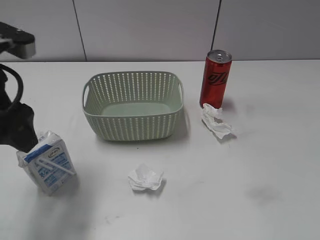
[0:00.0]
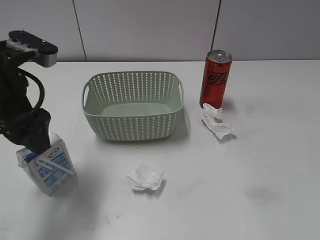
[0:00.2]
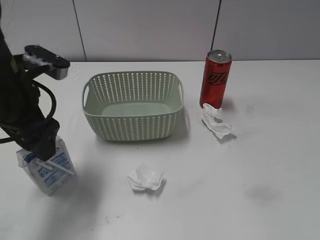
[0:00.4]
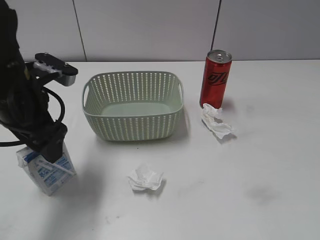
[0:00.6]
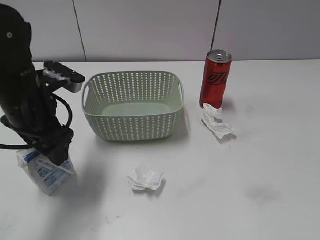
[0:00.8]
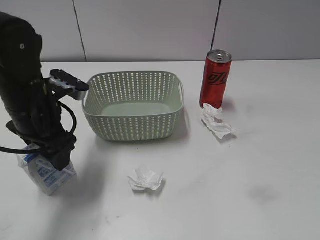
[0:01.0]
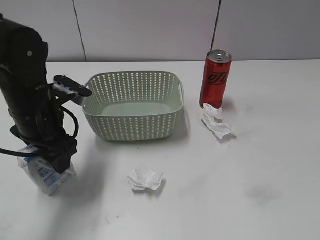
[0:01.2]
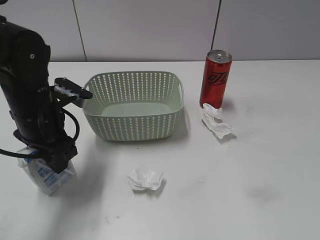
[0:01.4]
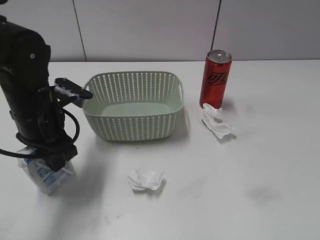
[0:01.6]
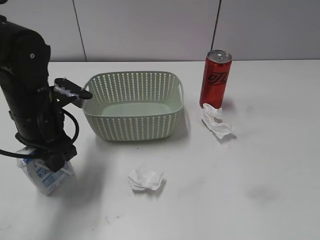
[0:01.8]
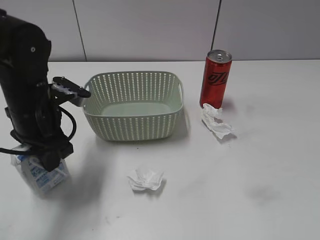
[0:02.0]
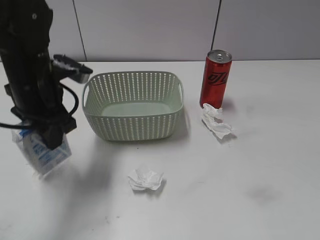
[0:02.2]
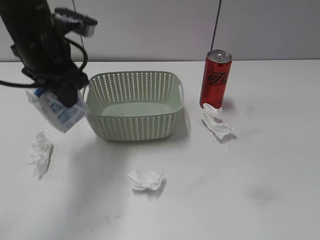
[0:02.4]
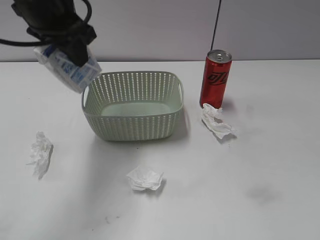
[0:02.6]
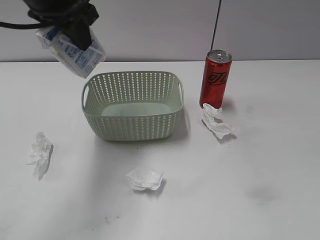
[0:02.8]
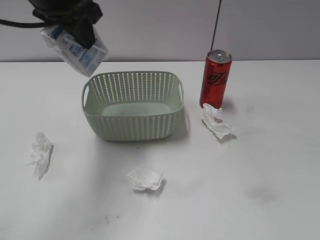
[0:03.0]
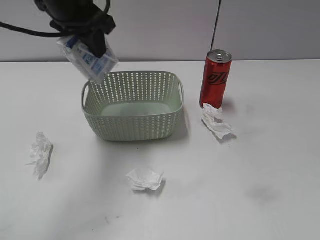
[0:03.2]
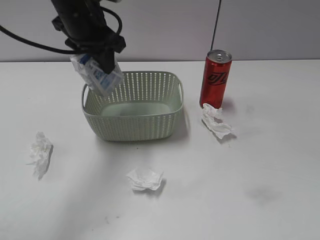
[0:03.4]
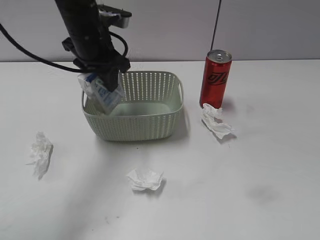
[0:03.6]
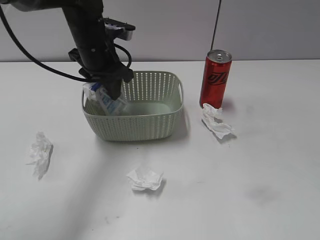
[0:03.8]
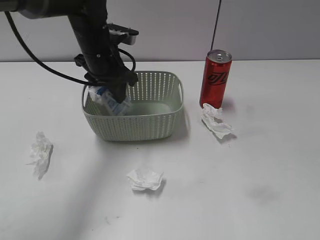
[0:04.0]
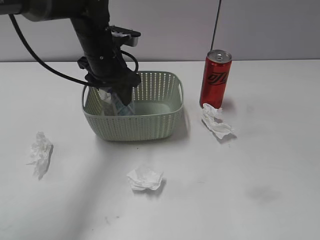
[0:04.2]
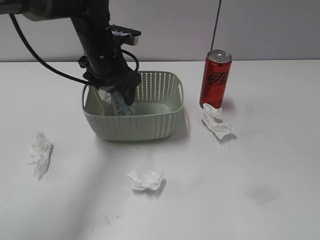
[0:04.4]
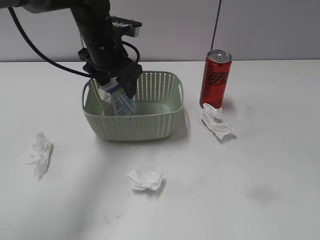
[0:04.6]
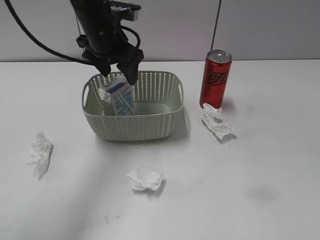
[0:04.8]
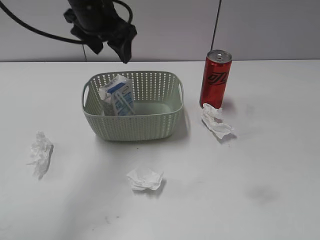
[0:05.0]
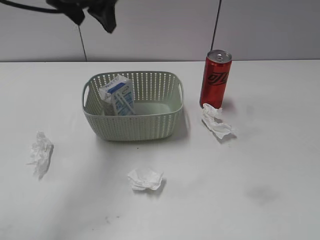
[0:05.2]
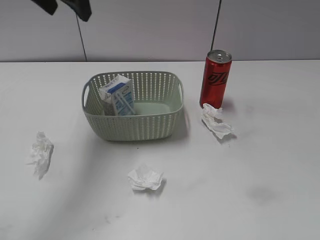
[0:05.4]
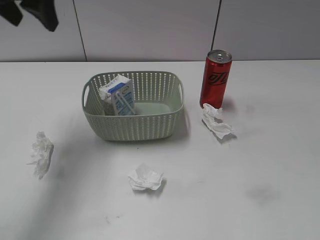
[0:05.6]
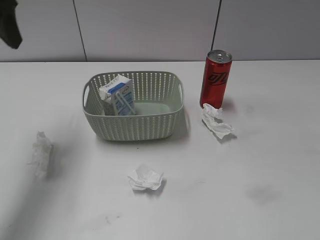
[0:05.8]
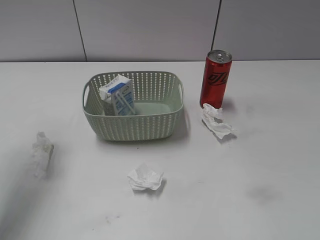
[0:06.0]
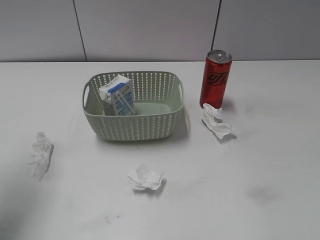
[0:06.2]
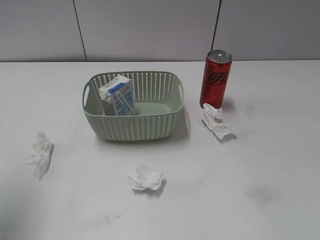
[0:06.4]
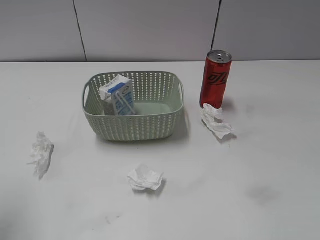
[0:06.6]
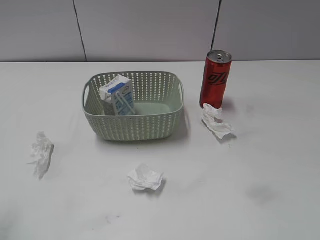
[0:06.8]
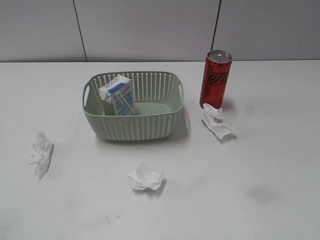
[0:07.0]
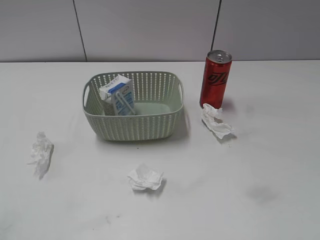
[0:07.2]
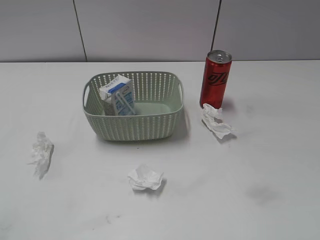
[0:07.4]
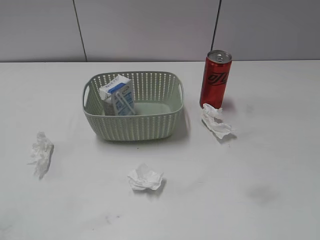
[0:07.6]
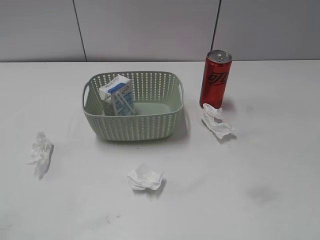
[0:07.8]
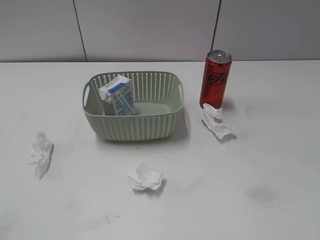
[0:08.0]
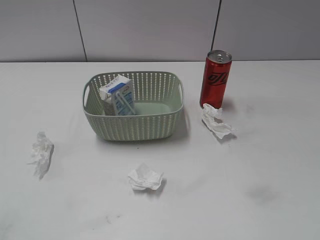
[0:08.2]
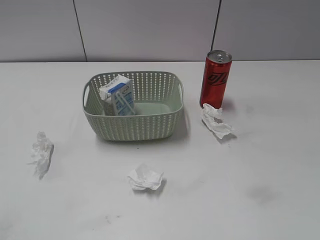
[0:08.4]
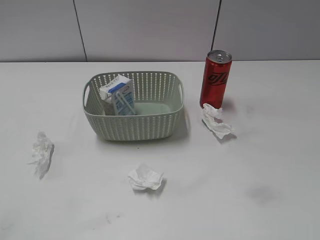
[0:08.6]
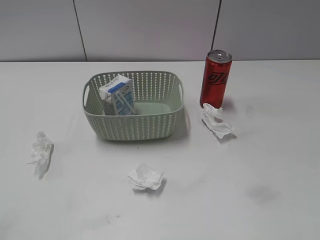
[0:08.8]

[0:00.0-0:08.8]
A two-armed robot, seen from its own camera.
Step, 0:00.0 to 0:01.6: Grasp the milk with left gripper.
Step, 0:01.8 to 0:05.0: Place the milk in the basket with left gripper.
0:00.0 to 0:01.4: The left gripper travels downward and forward by some 15 cm.
0:01.4 to 0:03.0: The left gripper is displaced upward by about 15 cm.
0:03.0 to 0:04.4: The left gripper moves downward and forward, roughly 15 cm, and opens.
0:04.4 to 0:05.8: The left gripper is displaced upward, to the left and backward by some 25 cm.
0:05.8 to 0:07.4: The left gripper heads backward, covering about 30 cm.

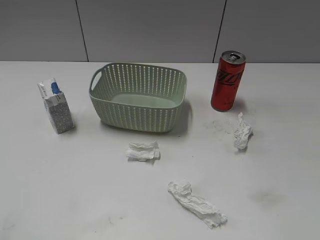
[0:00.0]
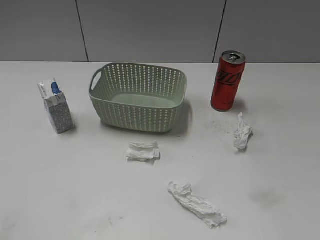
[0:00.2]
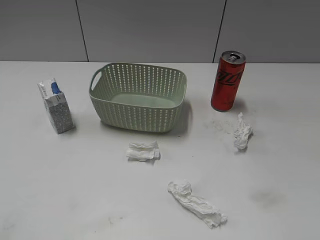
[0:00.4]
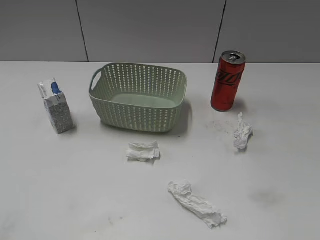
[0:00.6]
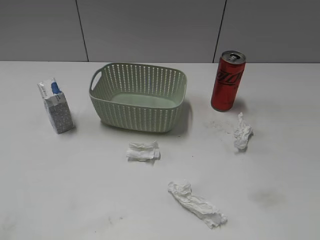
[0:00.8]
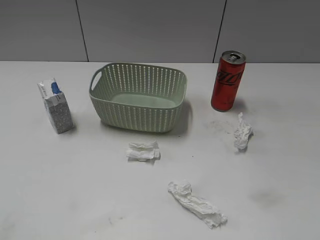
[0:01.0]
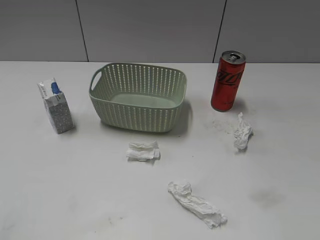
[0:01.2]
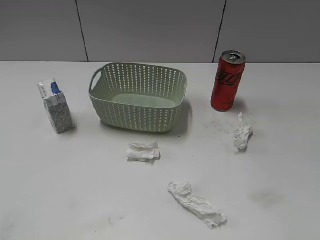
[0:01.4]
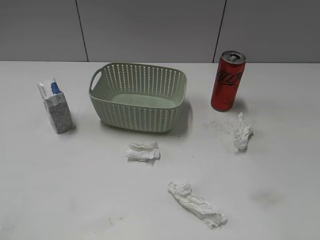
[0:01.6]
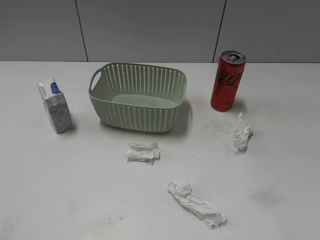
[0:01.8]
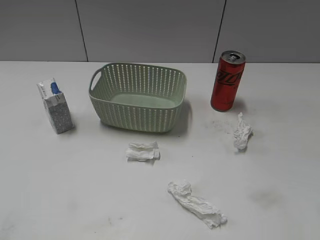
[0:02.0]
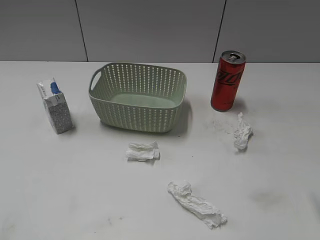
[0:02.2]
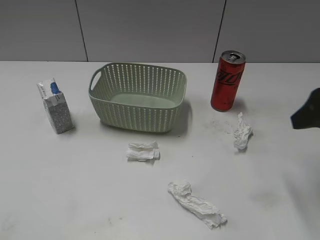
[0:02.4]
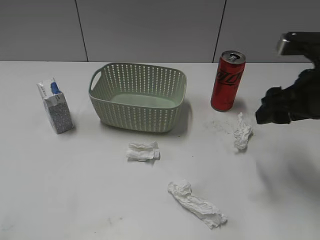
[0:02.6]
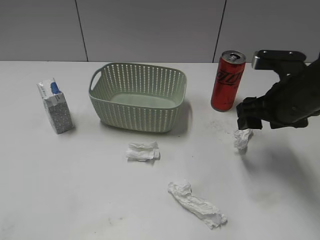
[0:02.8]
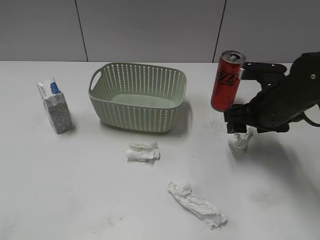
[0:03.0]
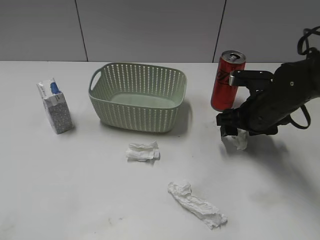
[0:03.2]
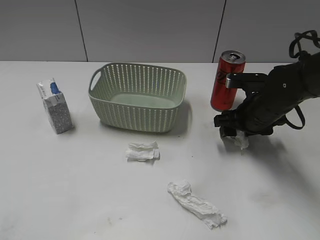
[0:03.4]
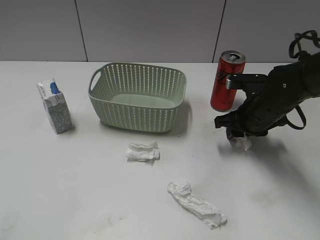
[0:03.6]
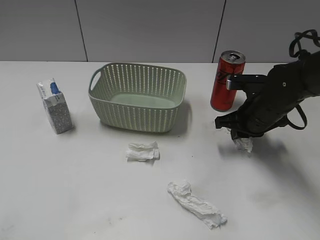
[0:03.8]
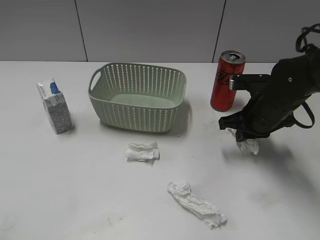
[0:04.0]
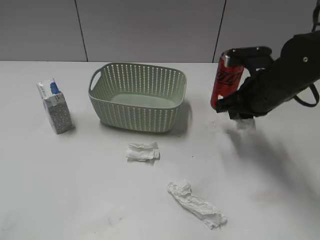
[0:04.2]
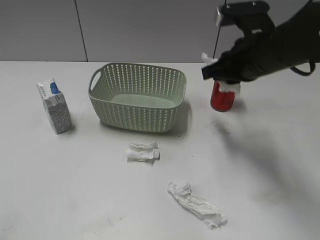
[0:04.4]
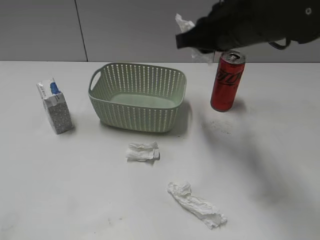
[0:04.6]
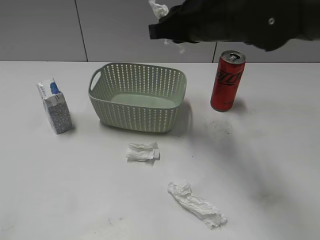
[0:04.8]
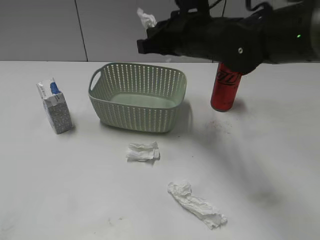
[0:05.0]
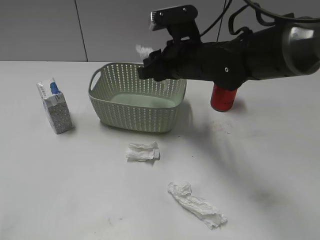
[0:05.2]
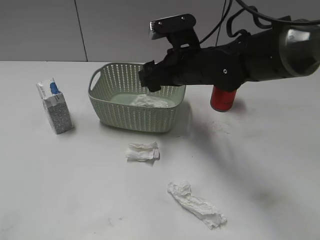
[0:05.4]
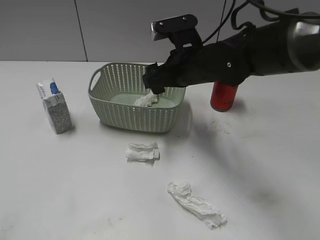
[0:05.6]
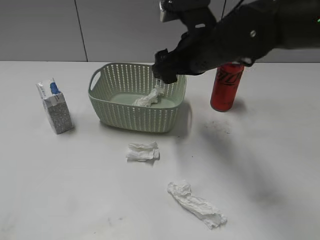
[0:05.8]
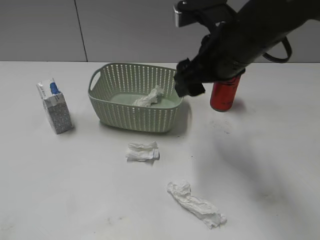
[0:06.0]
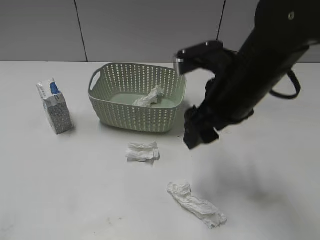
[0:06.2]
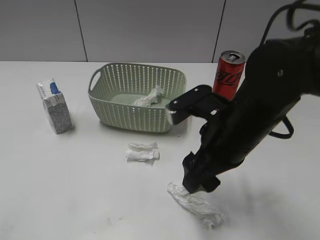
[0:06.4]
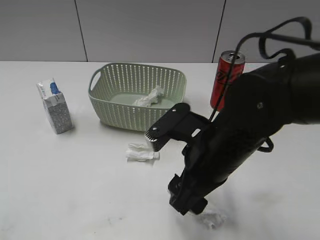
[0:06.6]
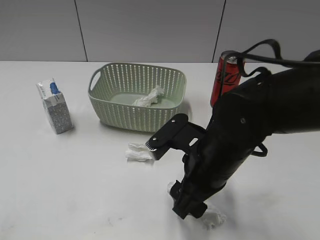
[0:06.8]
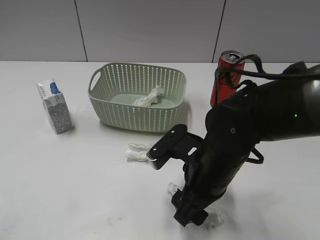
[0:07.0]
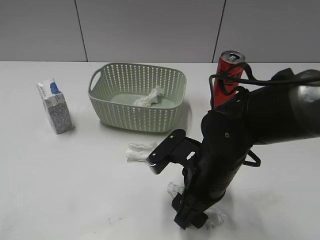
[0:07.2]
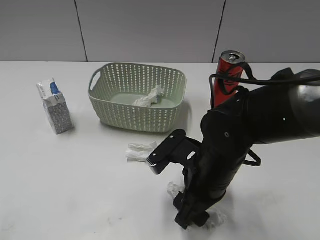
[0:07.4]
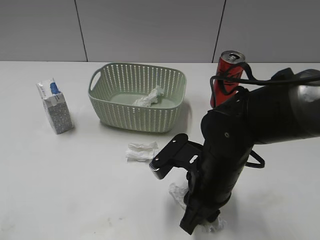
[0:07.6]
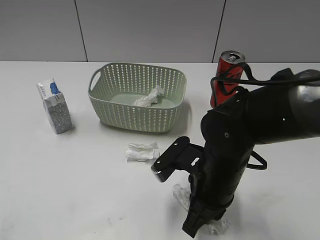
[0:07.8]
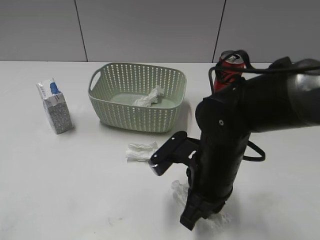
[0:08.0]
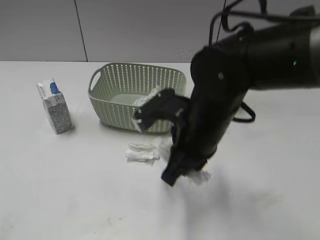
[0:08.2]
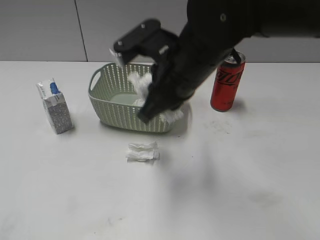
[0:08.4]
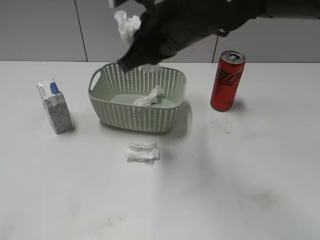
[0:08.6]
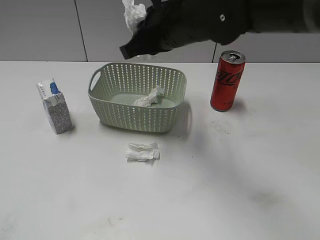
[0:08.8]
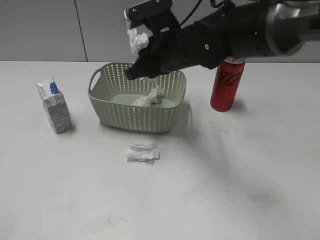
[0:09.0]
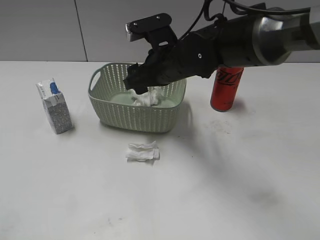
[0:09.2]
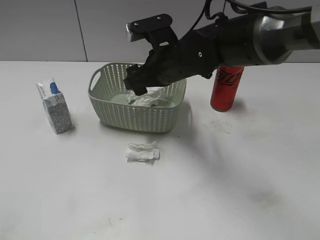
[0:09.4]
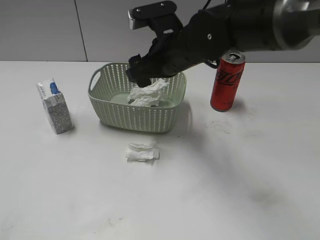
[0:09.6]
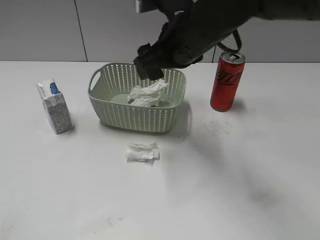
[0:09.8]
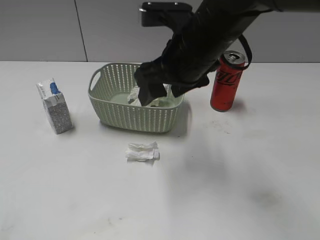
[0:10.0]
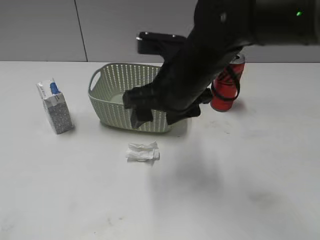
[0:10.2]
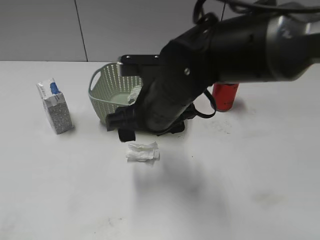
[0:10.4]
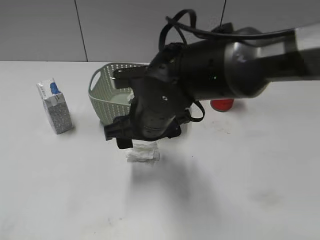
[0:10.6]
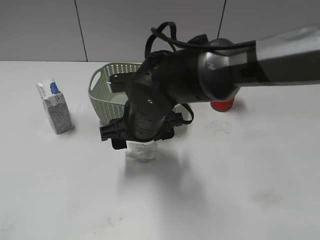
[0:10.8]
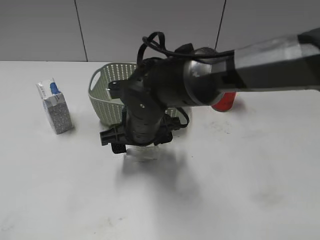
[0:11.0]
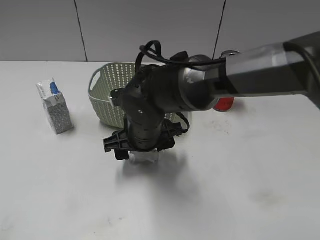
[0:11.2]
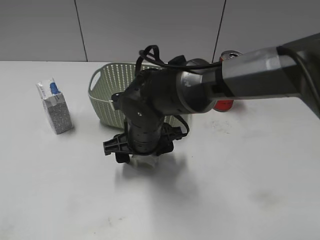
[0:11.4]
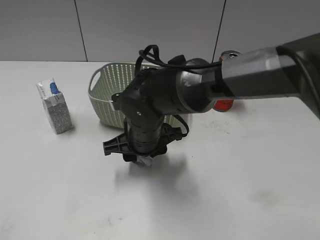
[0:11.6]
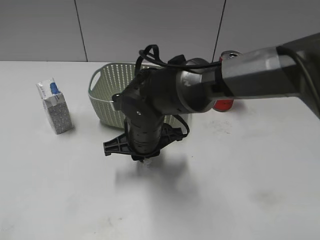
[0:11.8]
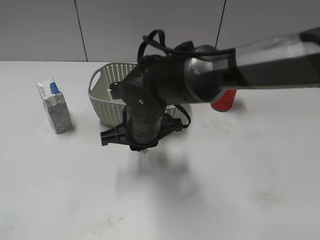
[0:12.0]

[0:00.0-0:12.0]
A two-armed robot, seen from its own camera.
Step, 0:02.2 to 0:03.8: Grasp the waste paper with right gripper.
Step, 0:04.0 to 0:05.4: Place the waste paper in the basket with right gripper.
Step, 0:05.6 to 0:08.2: Grasp the waste paper with right gripper.
Step, 0:08.4 to 0:09.4: Place the waste paper in the basket with right gripper.
Step, 0:09.6 to 0:11.6: Grasp the waste paper with right gripper.
0:01.6 to 0:03.0: The right gripper shifts approximately 30 cm forward and downward.
0:03.0 to 0:04.4: The right gripper goes roughly 10 cm upward, and closes up.
0:04.4 to 0:06.0: The right gripper is displaced to the left by approximately 5 cm, and opens.
0:06.0 to 0:07.6: The right gripper is displaced downward and backward by approximately 20 cm, and closes its fingers.
0:07.6 to 0:09.0: The right gripper moves forward and upward, approximately 20 cm, and closes.
0:09.0 to 0:10.4: The right gripper shifts some 10 cm backward, and opens up.
0:10.4 to 0:12.0: The right gripper heads downward, covering approximately 5 cm, and closes up.

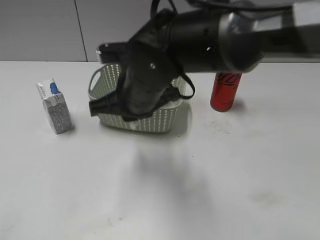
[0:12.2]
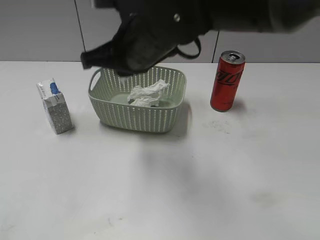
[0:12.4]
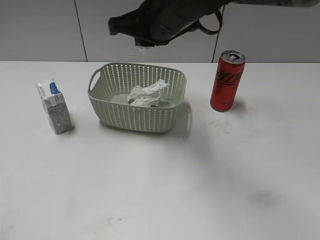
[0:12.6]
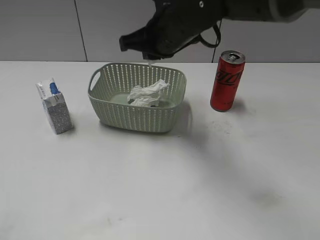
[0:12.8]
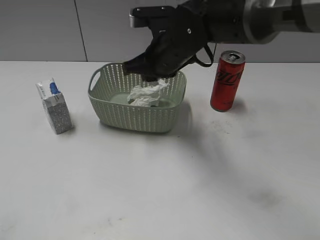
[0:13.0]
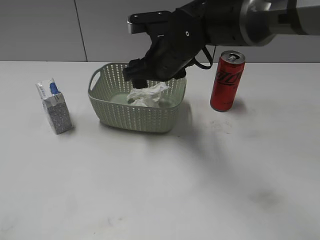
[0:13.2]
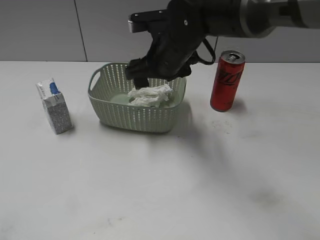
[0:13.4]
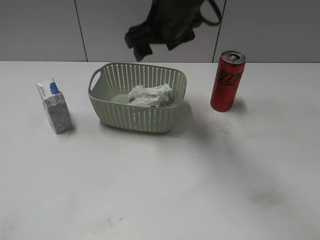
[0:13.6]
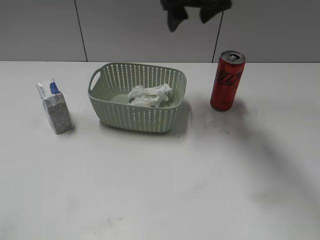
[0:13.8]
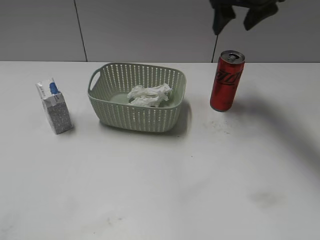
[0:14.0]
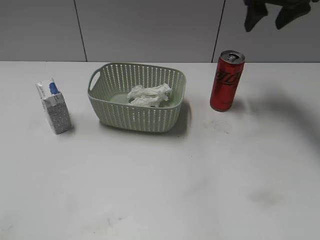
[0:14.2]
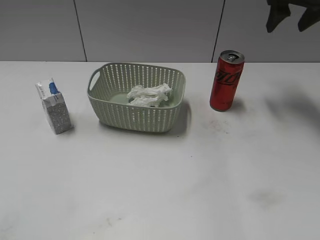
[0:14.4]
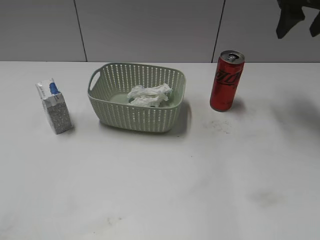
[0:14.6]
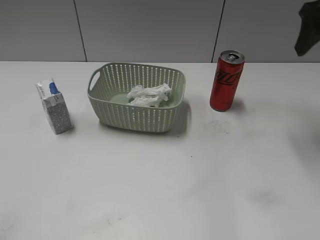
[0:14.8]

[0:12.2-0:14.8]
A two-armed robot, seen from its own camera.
Step, 0:12.2 to 0:13.4: Place the waste paper in the basket with right gripper.
0:12.2 to 0:13.4: The right gripper travels forward by roughly 10 cm, and opens up.
0:13.4 to 0:14.8: The right gripper shifts approximately 30 cm to the right and upward.
